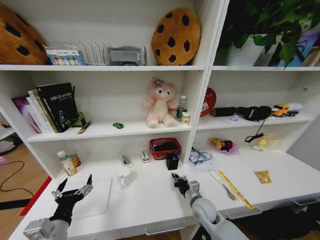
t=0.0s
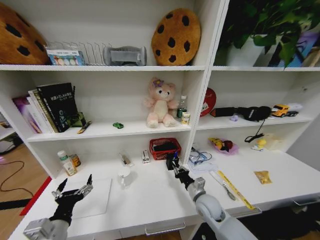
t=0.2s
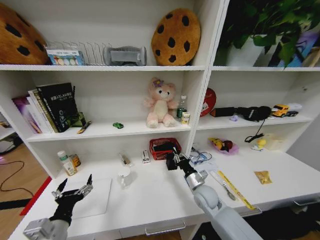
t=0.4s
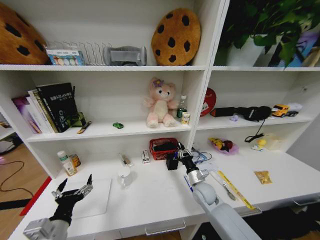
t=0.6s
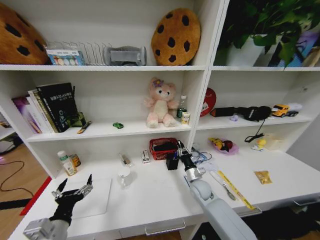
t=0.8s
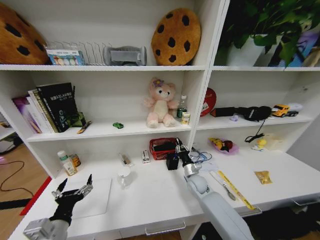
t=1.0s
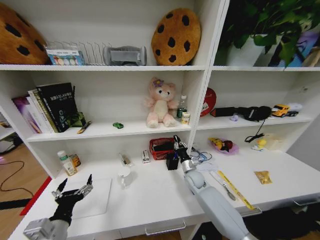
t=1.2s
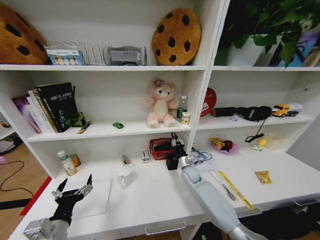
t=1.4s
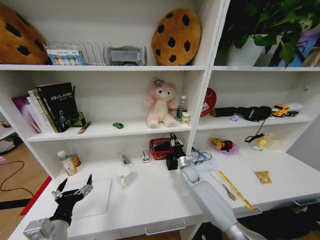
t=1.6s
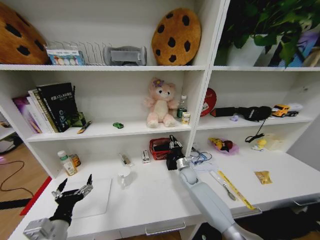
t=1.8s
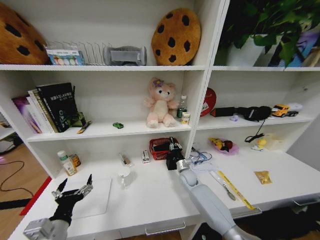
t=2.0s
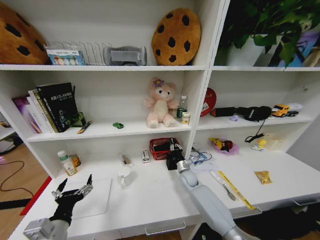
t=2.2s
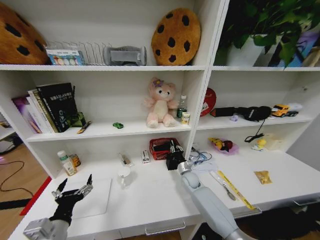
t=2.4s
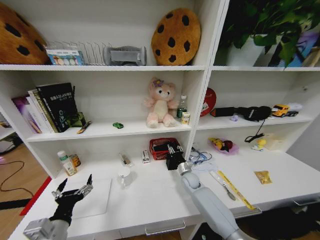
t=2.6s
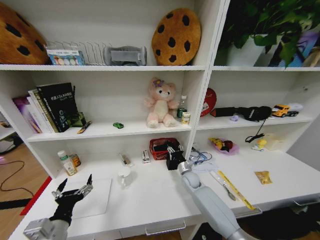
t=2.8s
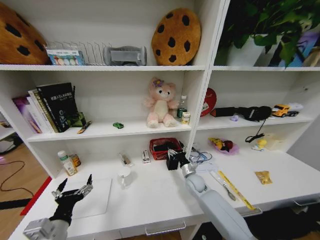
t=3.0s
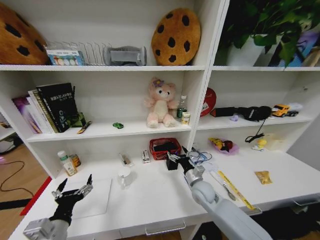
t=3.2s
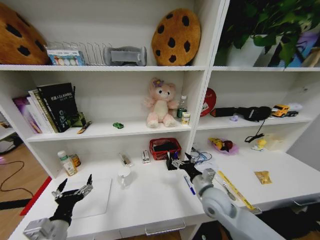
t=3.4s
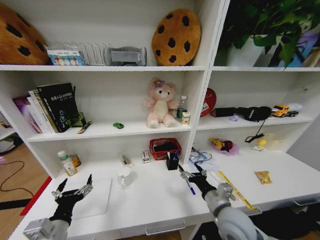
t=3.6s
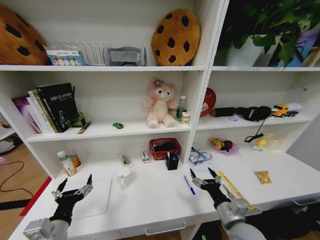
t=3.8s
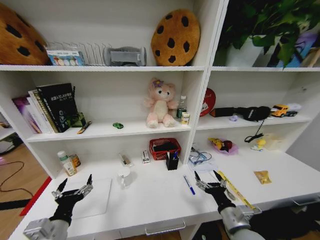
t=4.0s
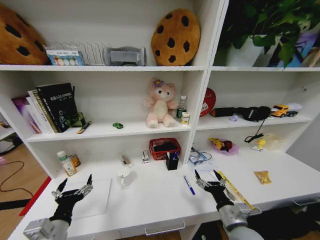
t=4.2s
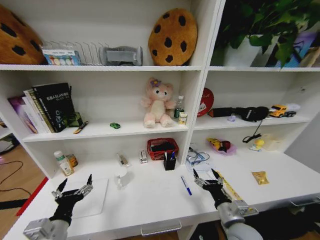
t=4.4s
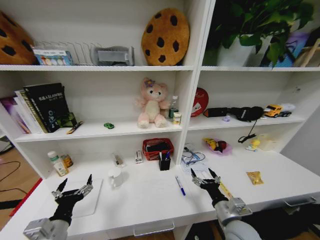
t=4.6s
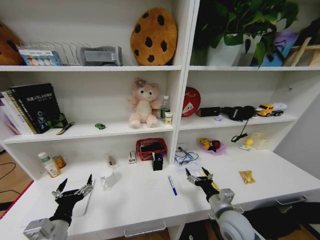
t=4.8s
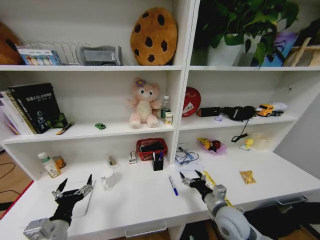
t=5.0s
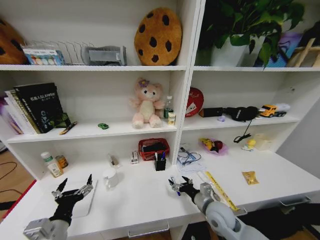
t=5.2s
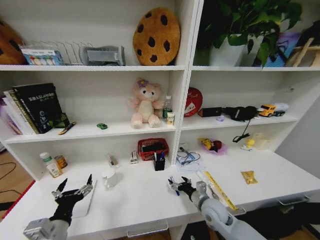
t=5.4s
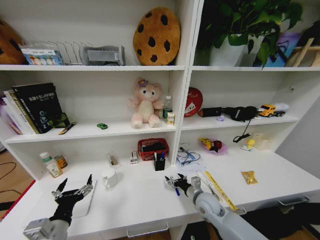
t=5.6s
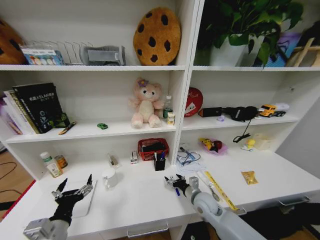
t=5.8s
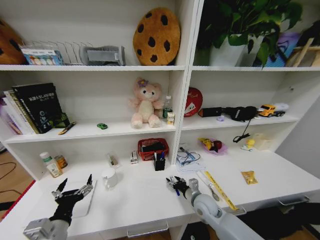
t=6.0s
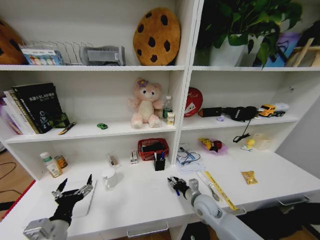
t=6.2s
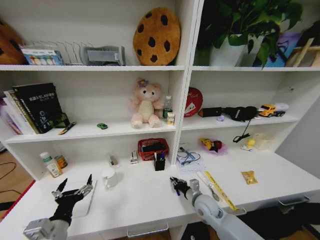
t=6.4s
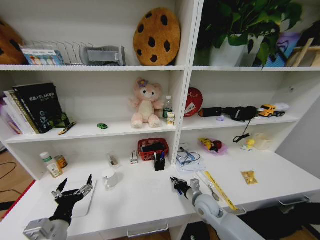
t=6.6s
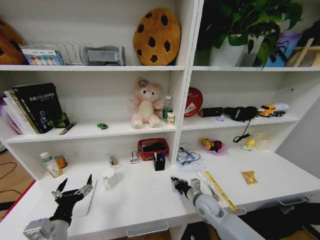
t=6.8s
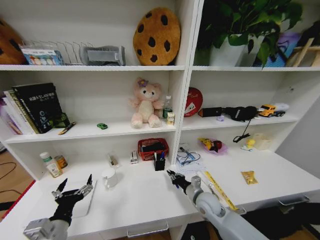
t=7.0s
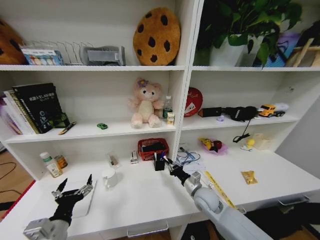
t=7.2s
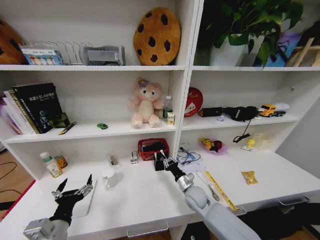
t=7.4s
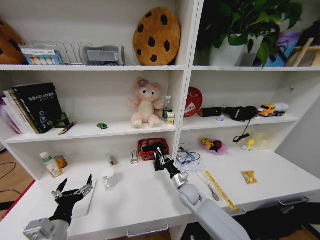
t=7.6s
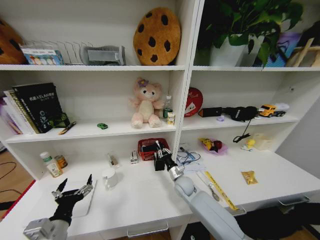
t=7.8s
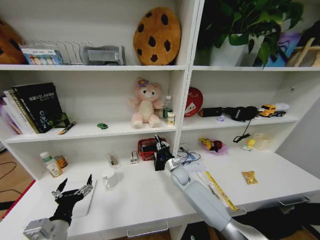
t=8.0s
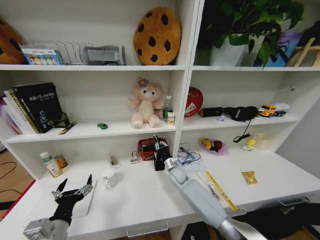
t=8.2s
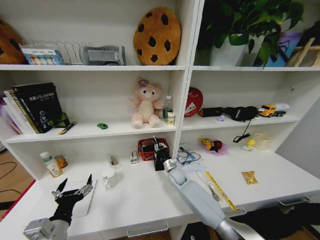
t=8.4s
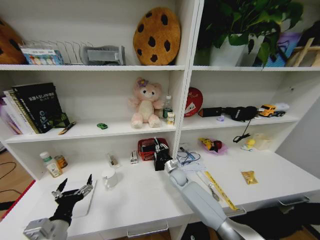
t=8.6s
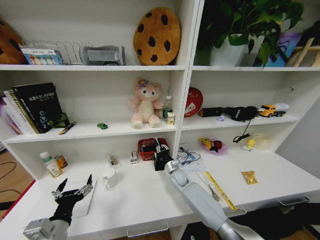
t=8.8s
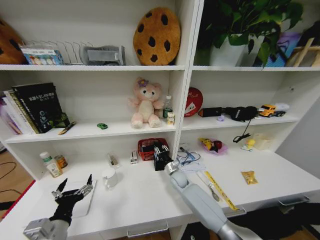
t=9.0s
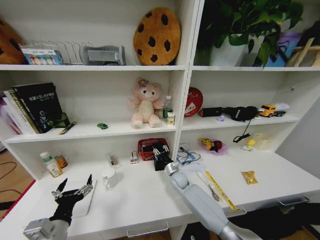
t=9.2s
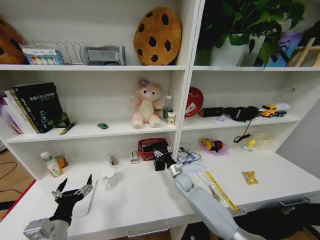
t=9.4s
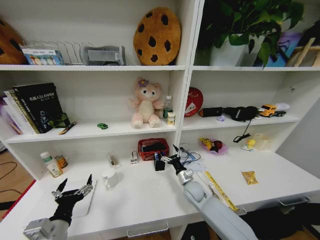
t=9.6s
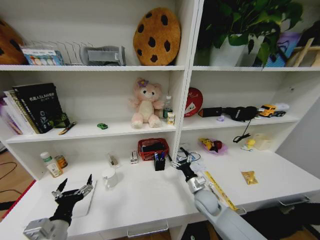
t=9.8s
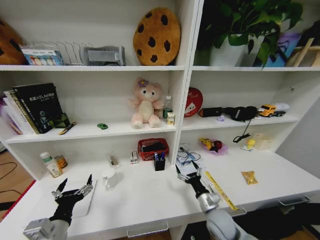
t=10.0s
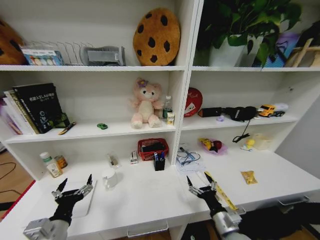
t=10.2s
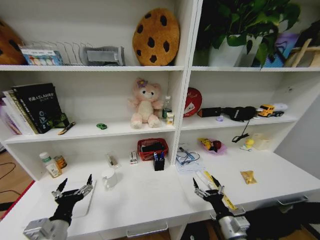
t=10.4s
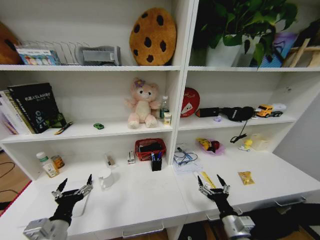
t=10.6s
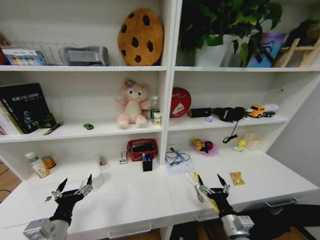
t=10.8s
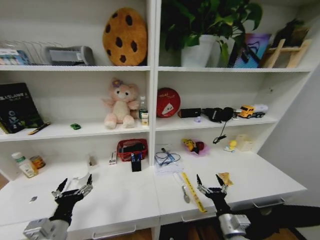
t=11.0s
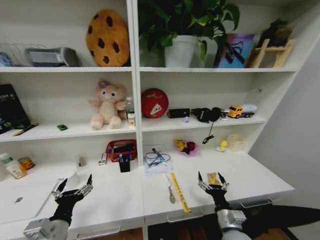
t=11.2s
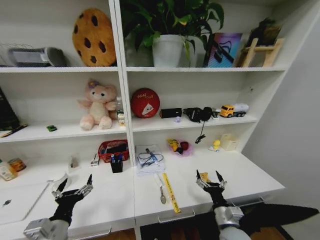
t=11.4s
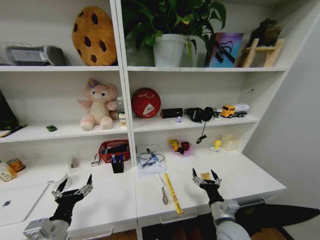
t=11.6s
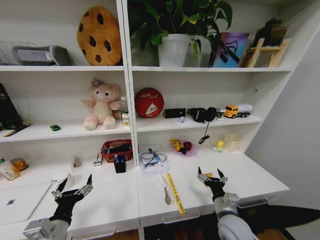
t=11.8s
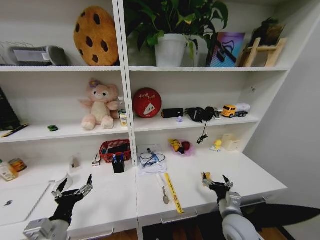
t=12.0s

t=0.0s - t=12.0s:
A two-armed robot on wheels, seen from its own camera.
Task of the whole recording: Organize the objects on the table.
t=0.0s - t=1.6s: The right gripper shifts approximately 15 cm forward.
t=1.6s - t=3.0s: The right gripper moves about 5 cm, and opens.
t=3.0s - t=4.4s: The right gripper moves backward, some 25 cm.
t=4.4s - t=6.0s: The right gripper is displaced forward, downward and to the left by some 15 cm.
t=6.0s - t=7.6s: The right gripper heads forward and to the left, covering roughly 10 cm, and closes its fingers.
t=7.6s - t=9.0s: The right gripper shifts roughly 10 cm forward.
t=9.0s - t=10.4s: The right gripper travels backward and to the right by about 35 cm, and opens its fingers.
t=10.4s - t=12.0s: The right gripper goes roughly 5 cm forward.

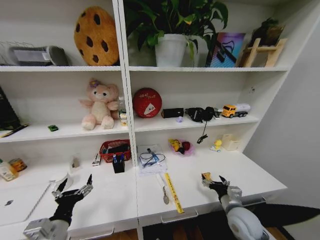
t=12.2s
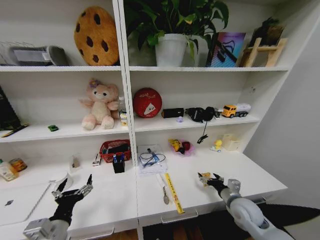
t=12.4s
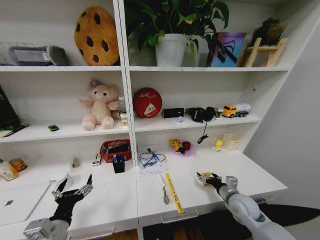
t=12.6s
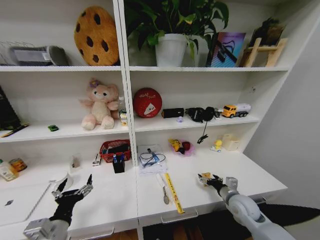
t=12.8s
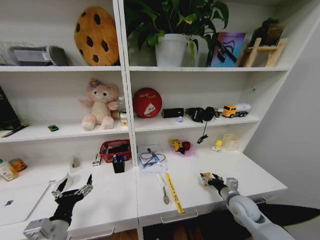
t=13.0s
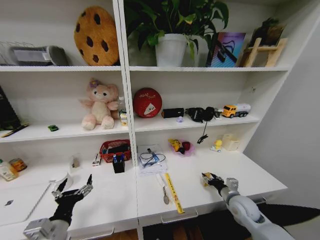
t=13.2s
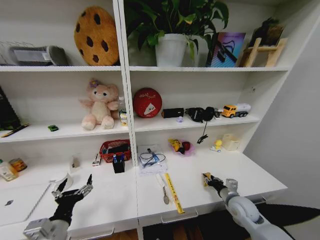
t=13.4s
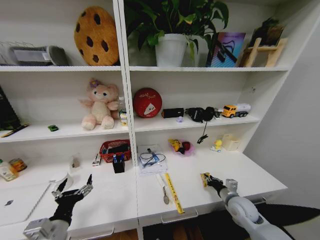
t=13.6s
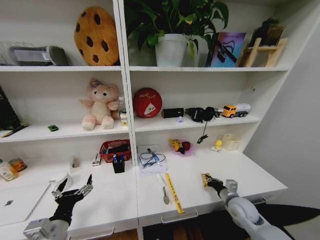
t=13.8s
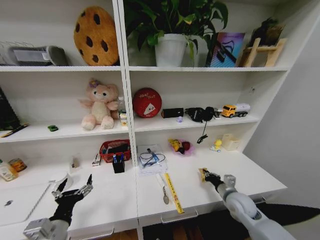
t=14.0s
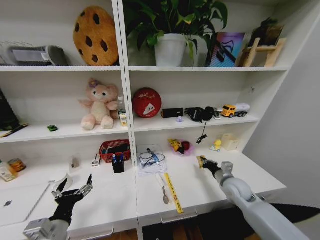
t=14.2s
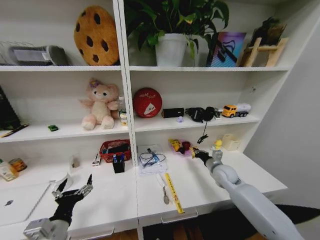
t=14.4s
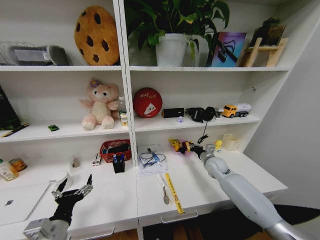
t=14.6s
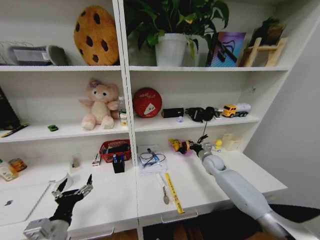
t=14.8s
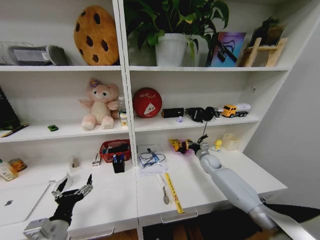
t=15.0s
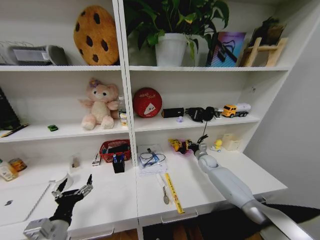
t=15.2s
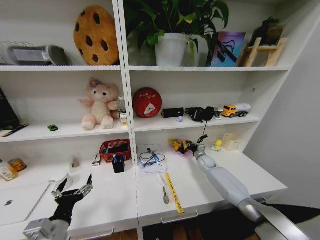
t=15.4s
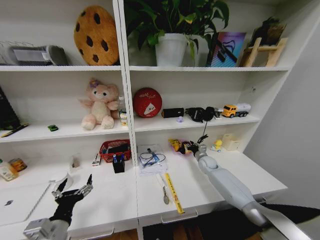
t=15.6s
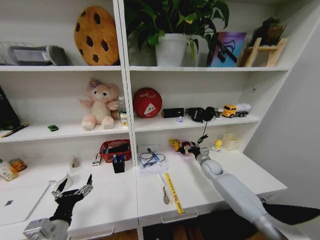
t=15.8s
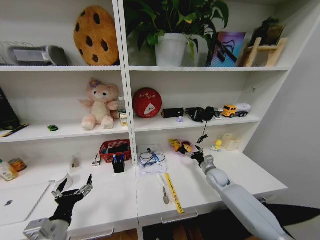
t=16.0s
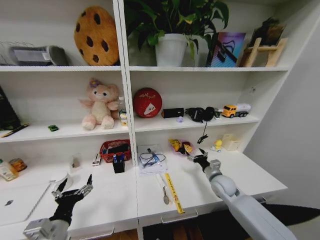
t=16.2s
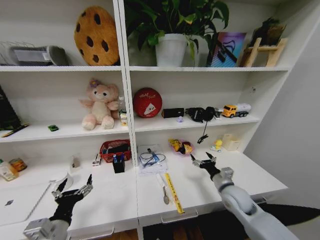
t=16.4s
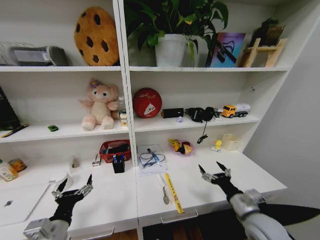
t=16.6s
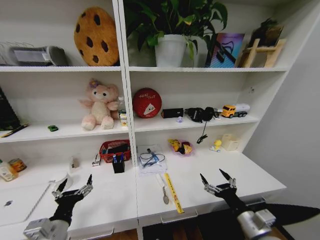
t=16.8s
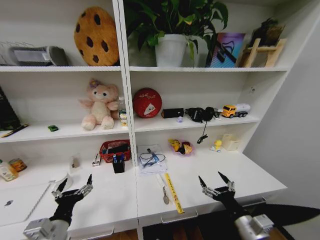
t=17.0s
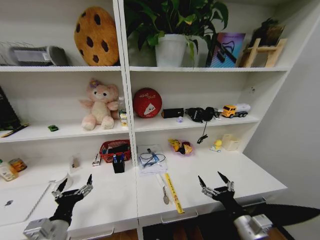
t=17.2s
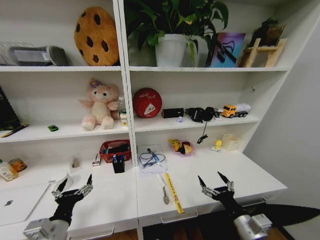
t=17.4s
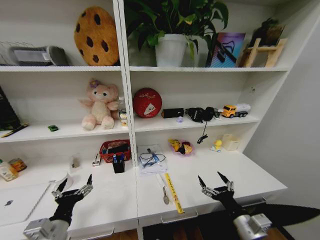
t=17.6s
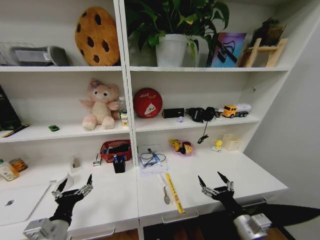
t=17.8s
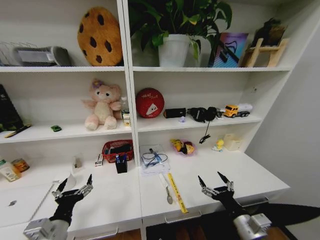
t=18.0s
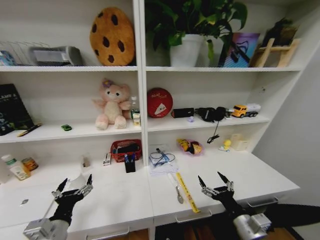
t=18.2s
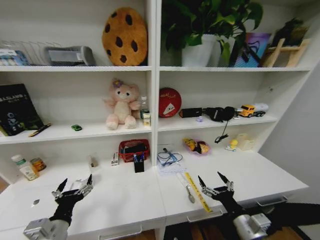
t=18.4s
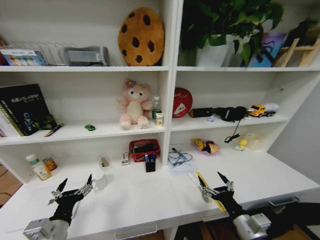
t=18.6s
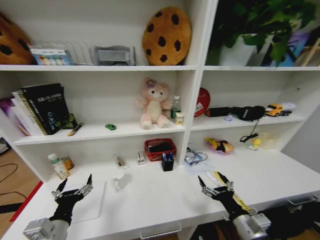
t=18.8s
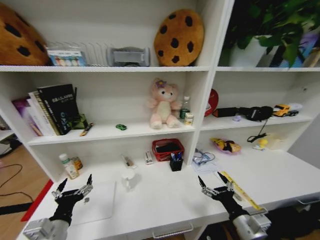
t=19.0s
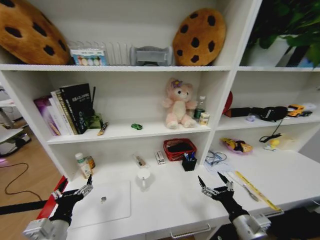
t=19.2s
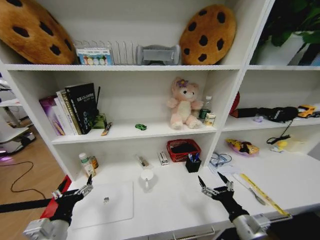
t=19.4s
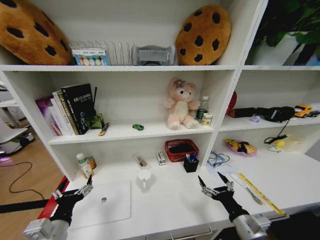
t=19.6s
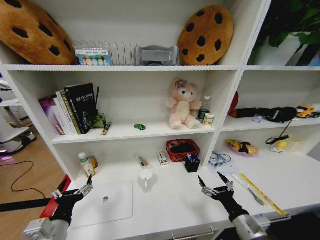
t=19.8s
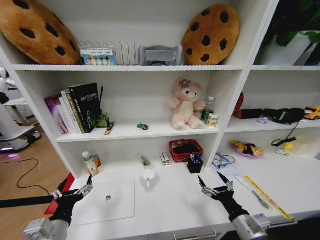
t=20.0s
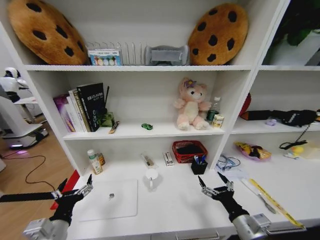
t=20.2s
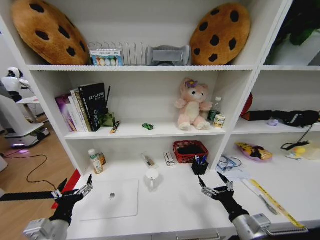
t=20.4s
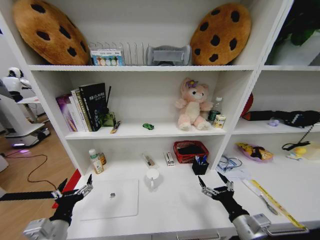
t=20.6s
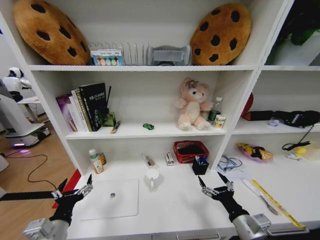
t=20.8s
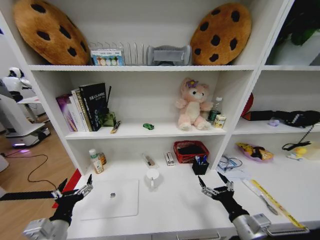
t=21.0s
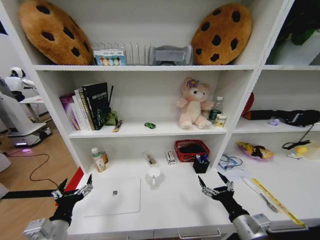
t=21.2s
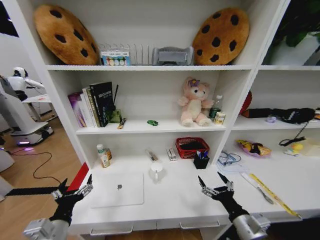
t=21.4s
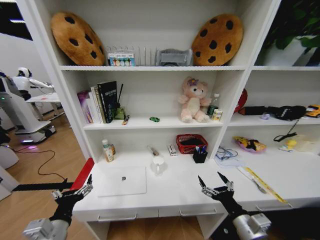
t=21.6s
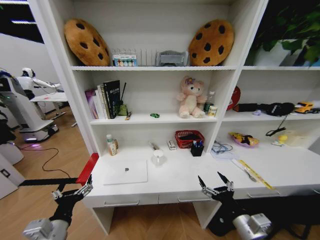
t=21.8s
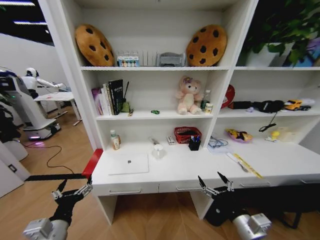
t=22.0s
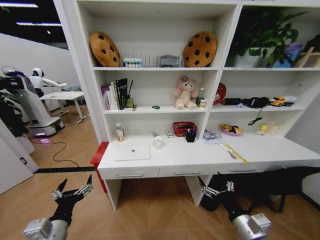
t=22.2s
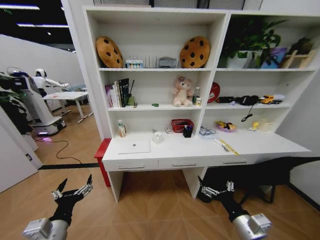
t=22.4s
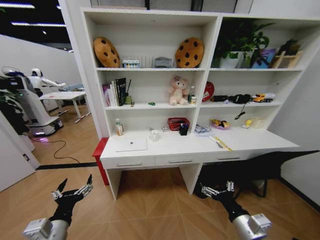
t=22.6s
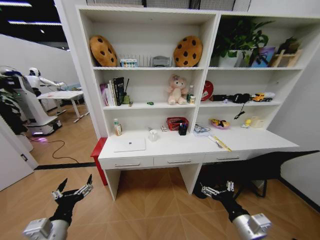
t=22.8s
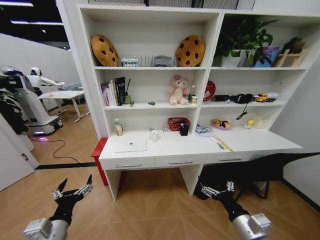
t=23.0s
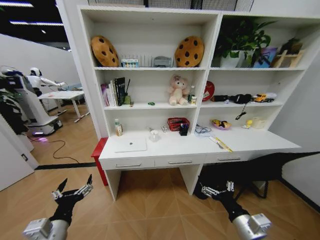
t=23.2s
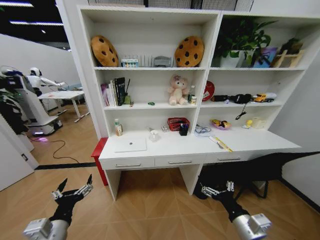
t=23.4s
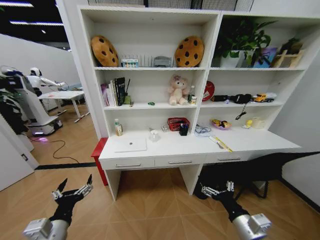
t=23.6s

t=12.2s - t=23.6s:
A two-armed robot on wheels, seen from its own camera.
Task of the whole recording: Organize the objects on the table.
t=12.2s - t=13.6s: The right gripper heads forward, covering roughly 5 cm, and closes up.
t=13.6s - t=15.0s: The right gripper travels forward by roughly 20 cm.
t=15.0s - t=16.4s: The right gripper moves backward, some 25 cm, and opens up.
t=16.4s - t=17.8s: The right gripper moves backward, about 15 cm.
